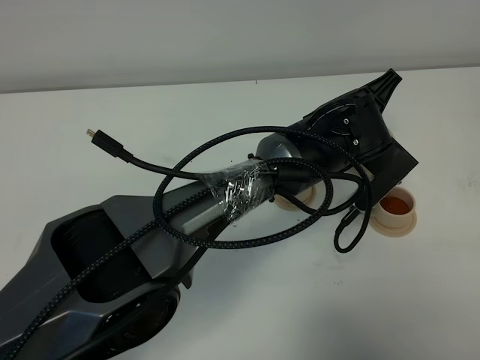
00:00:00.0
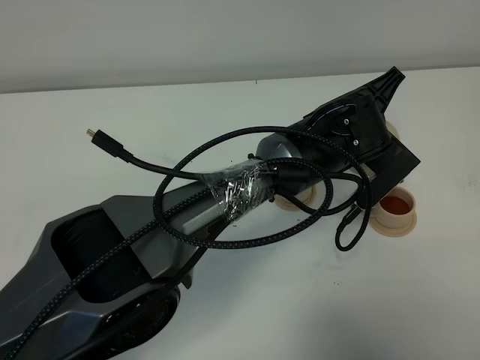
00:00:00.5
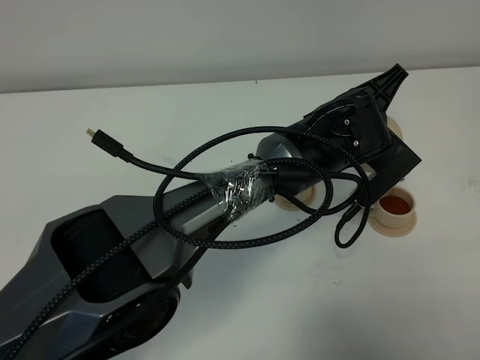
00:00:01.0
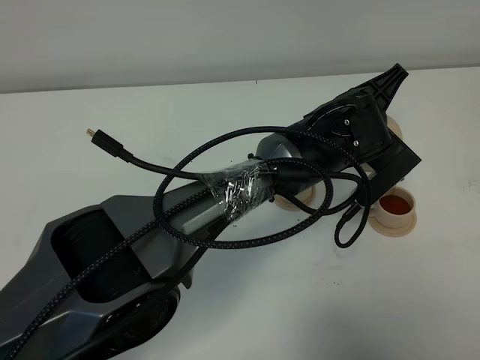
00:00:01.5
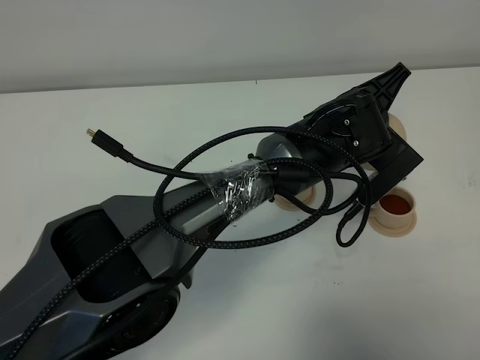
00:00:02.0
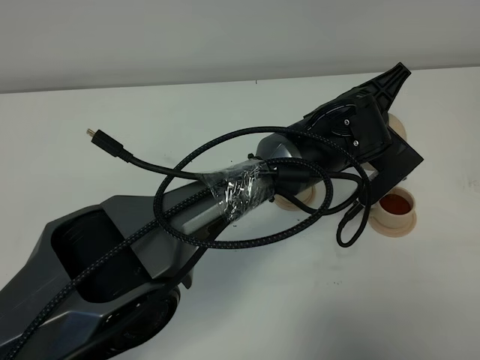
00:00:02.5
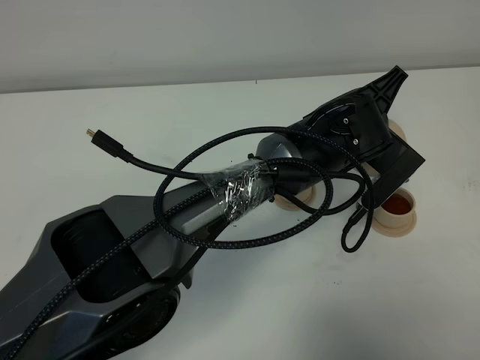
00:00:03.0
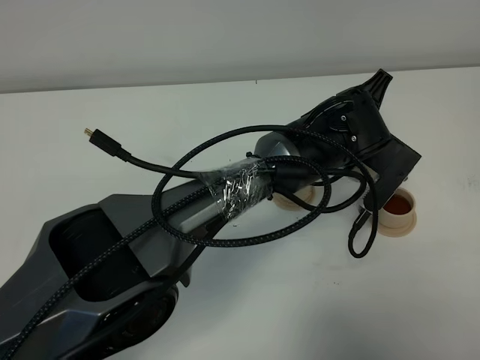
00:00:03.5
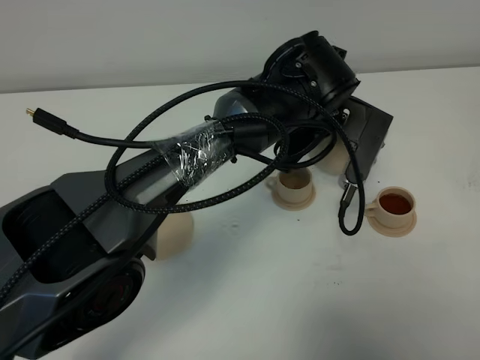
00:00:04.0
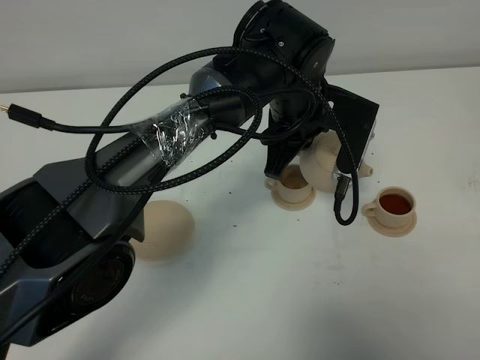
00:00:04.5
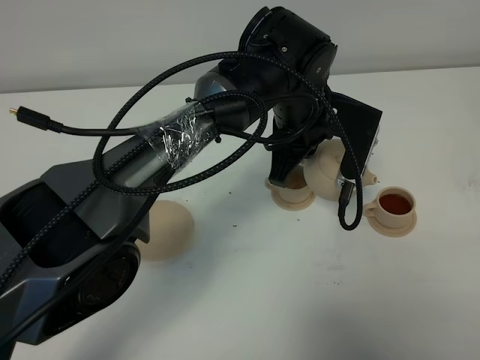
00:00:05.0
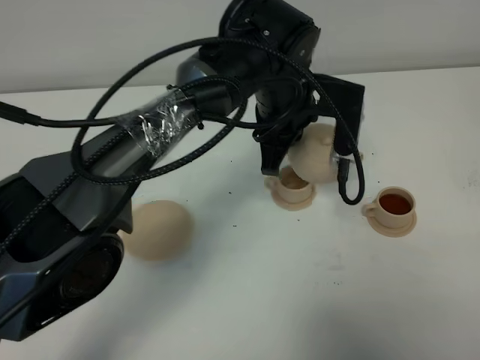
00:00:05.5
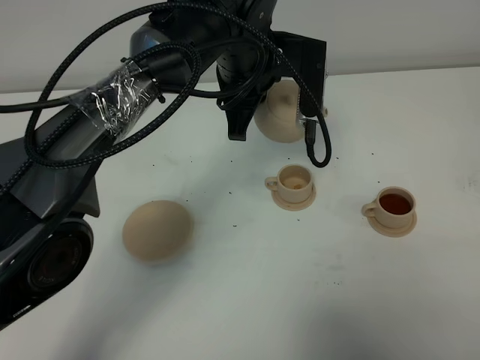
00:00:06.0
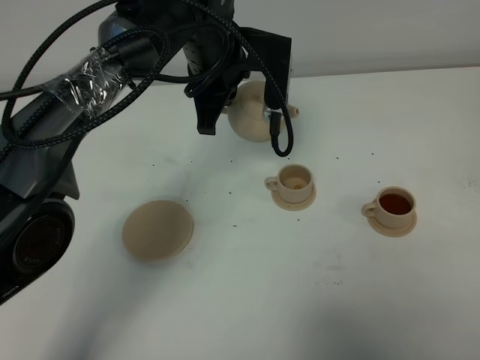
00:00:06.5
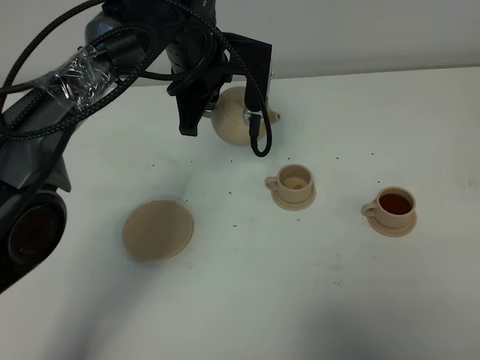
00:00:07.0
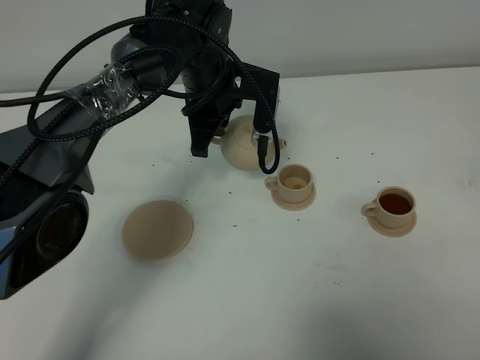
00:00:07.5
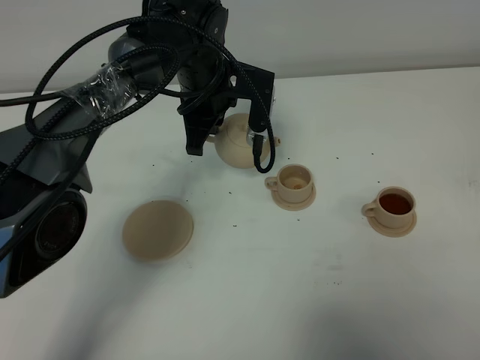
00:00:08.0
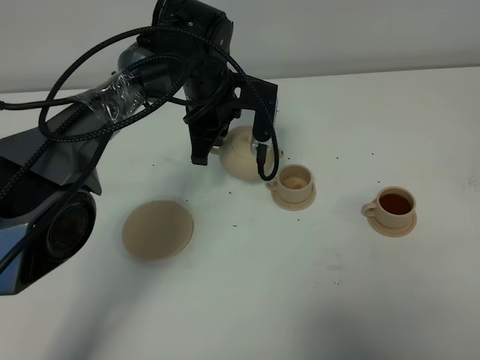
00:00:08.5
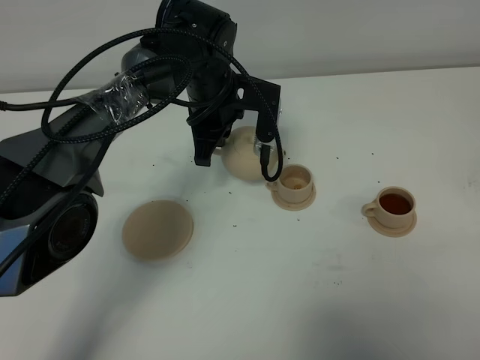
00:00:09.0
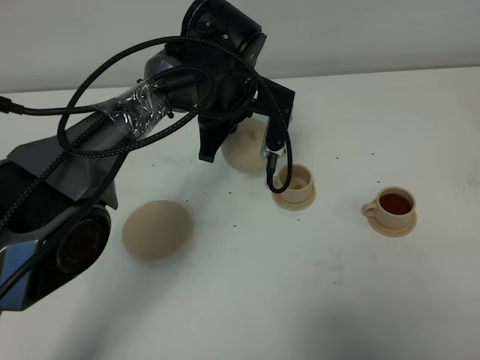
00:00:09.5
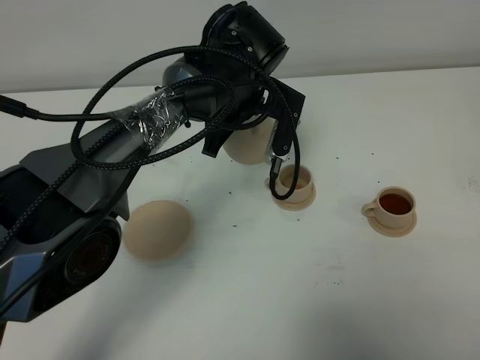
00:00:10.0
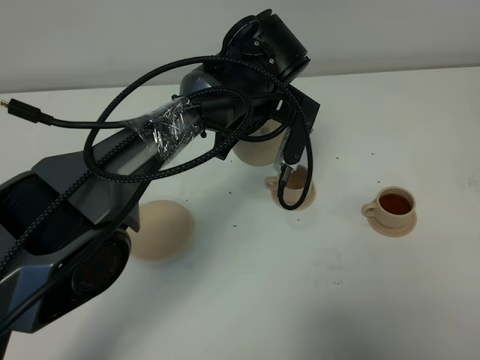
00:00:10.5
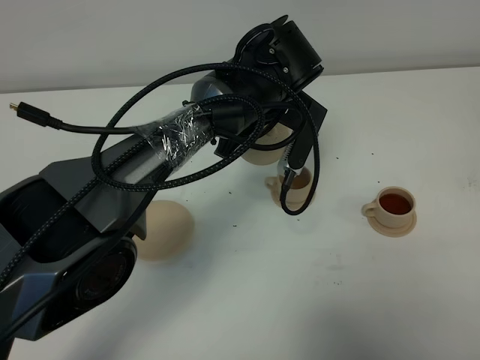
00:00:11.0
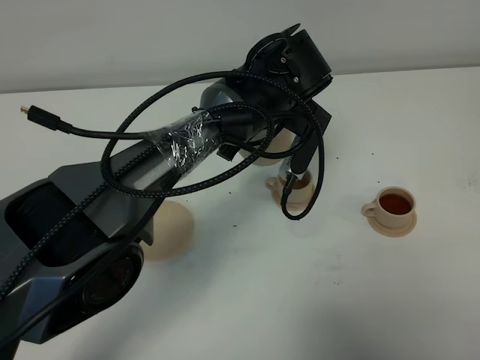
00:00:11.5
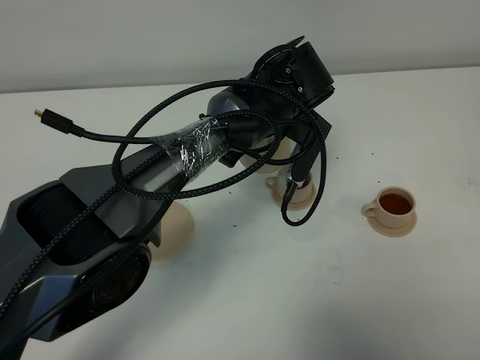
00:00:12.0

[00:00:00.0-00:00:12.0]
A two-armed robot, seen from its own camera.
Task of the whole recording: grasp the brown teapot and pour the tea into the two brown teacups one by one, put the brown teapot back in its original place.
Step, 00:00:00.0 to 00:00:03.5: Pour tea into the teacup with the left gripper.
00:00:00.0 to 00:00:02.0: The two grippers keep their place.
00:00:02.0 to 00:00:04.0: The left gripper heads to the left, covering some 5 cm.
00:00:04.0 to 00:00:06.0: The left gripper heads to the left and upward, covering approximately 10 cm.
00:00:06.0 to 00:00:08.0: The left gripper shifts about 10 cm downward and to the left.
00:00:08.0 to 00:00:10.0: The left gripper moves roughly 5 cm.

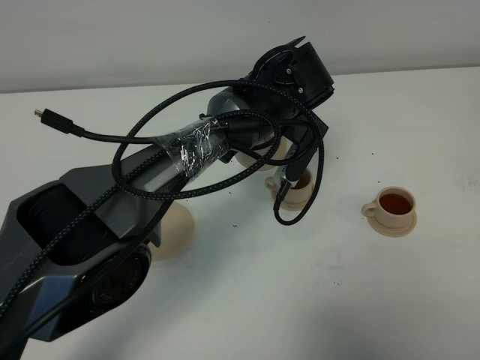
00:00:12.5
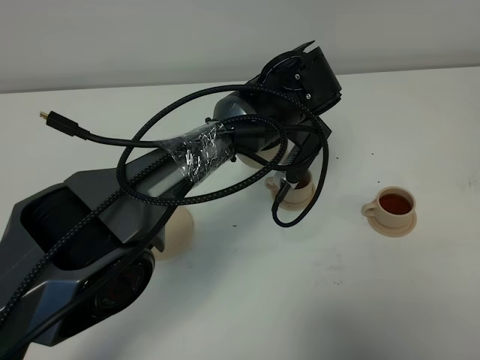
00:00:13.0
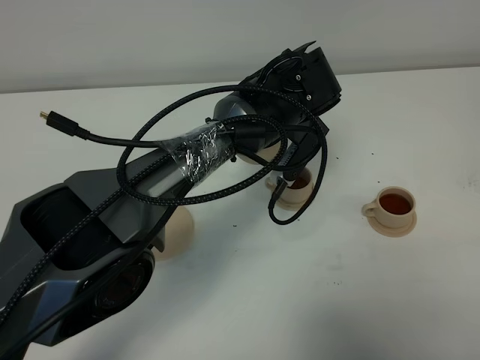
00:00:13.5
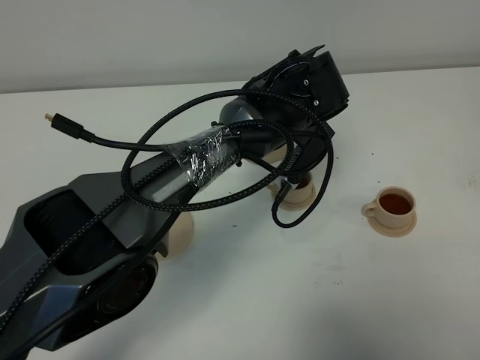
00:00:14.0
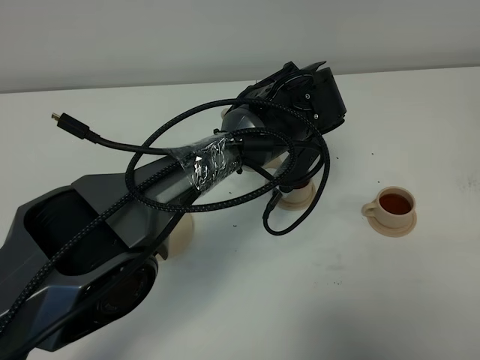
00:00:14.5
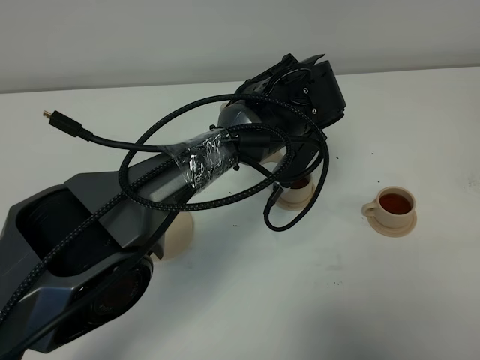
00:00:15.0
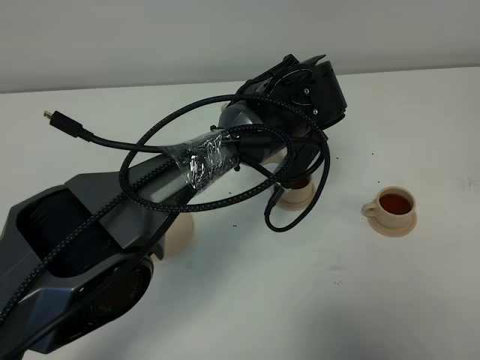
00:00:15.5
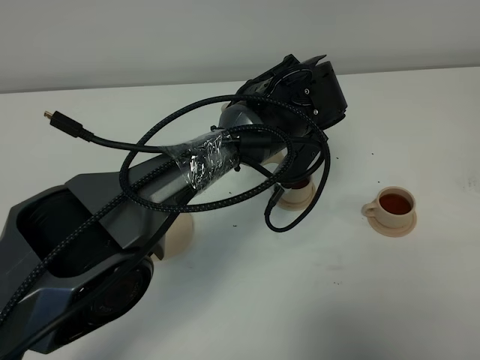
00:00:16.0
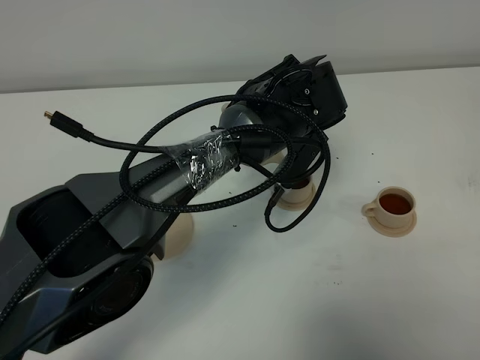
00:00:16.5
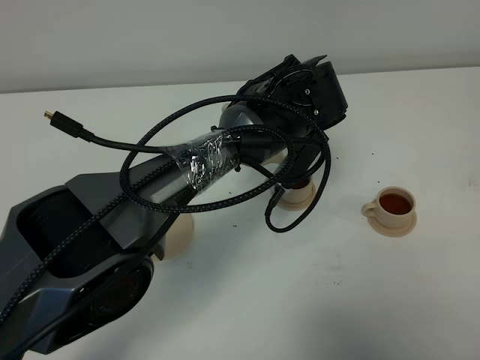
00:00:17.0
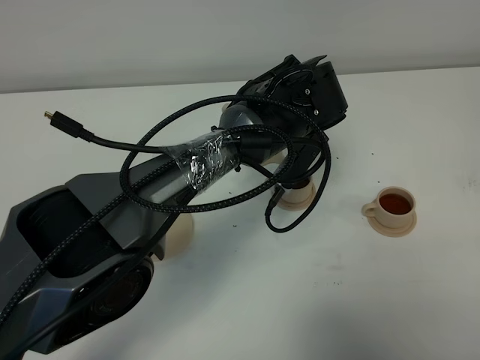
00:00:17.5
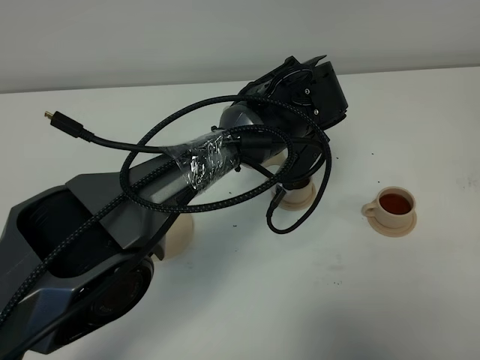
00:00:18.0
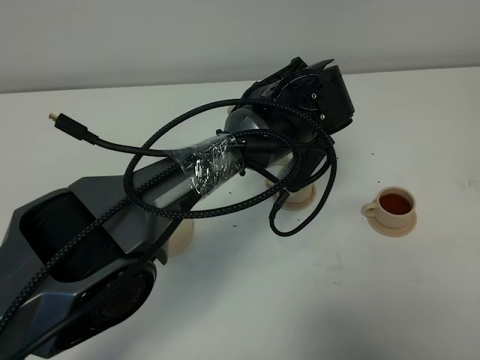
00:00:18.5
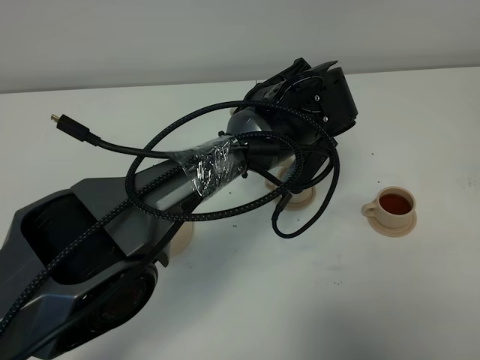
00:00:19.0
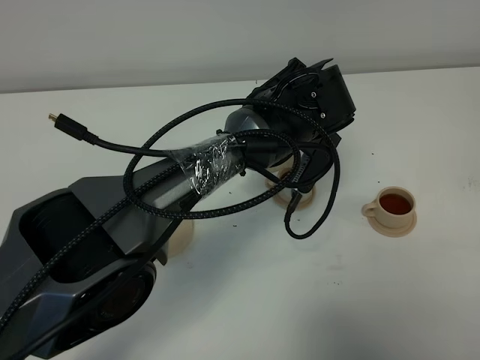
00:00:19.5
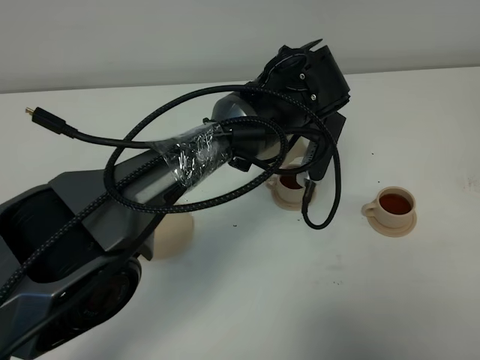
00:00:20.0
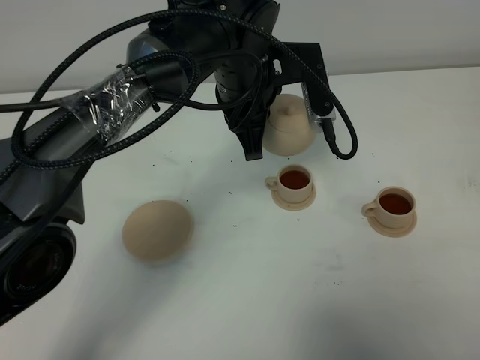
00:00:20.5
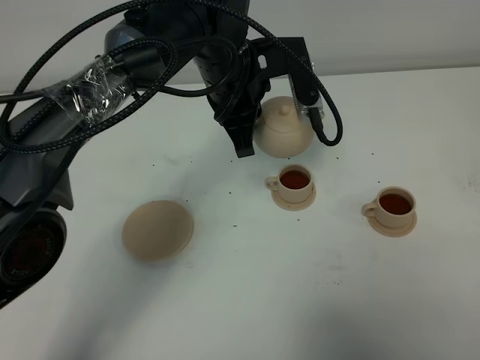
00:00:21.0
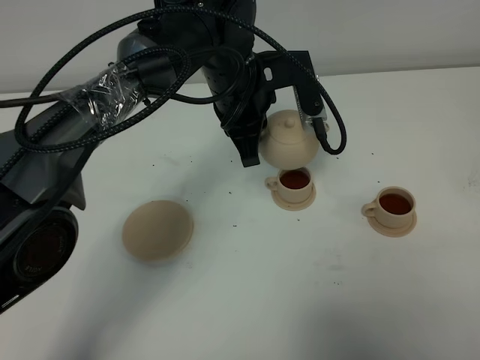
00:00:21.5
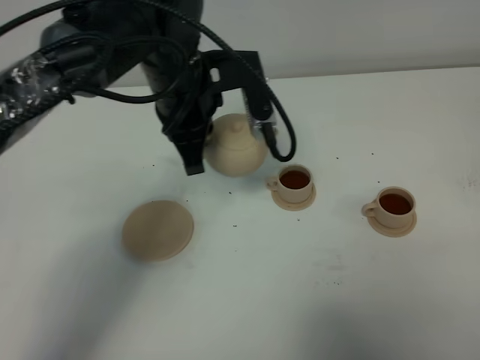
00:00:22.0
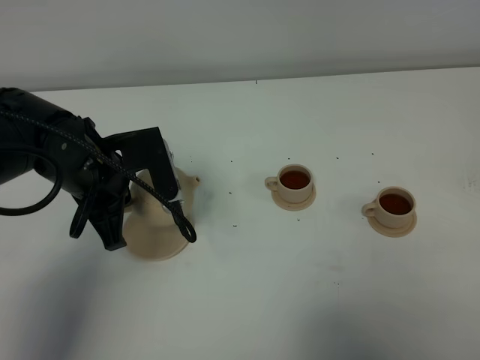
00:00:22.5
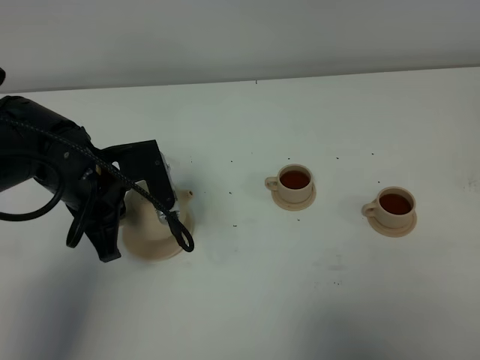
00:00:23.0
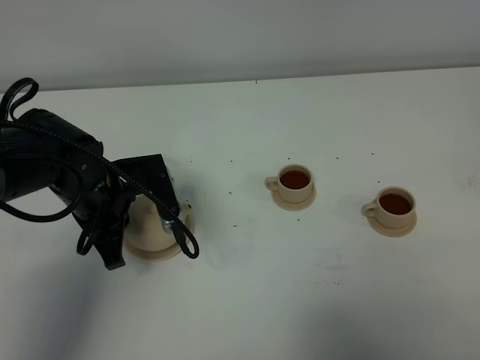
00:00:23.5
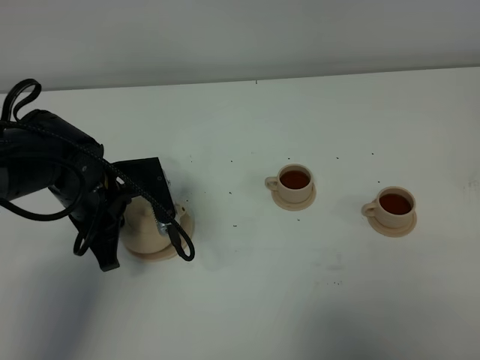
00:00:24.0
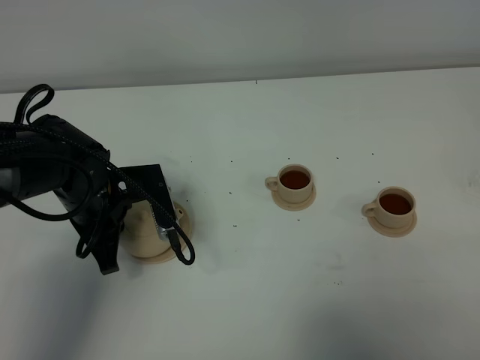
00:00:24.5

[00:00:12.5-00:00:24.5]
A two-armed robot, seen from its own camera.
Task of the whole recording: grasp the brown teapot and pour the tea into the two brown teacups one by one, put the brown teapot back in its original place.
Step, 00:00:12.5 to 00:00:20.0: Pour tea into the teacup with the left gripper.
00:00:12.5 to 00:00:14.5: The grippers stay close to where they were, moving slightly.
00:00:14.5 to 00:00:16.5: Both grippers stay put.
00:00:16.5 to 00:00:18.5: Both grippers stay put.
00:00:18.5 to 00:00:20.5: The left gripper travels upward by approximately 5 cm.
00:00:20.5 to 00:00:22.5: The left gripper heads to the left and backward, covering roughly 20 cm.
00:00:22.5 to 00:00:24.5: The left gripper heads downward, covering about 5 cm.

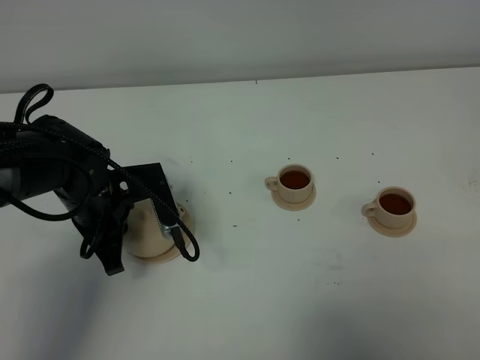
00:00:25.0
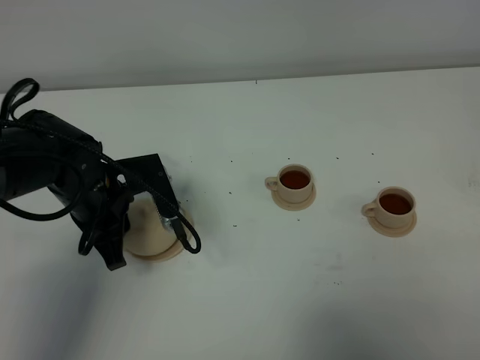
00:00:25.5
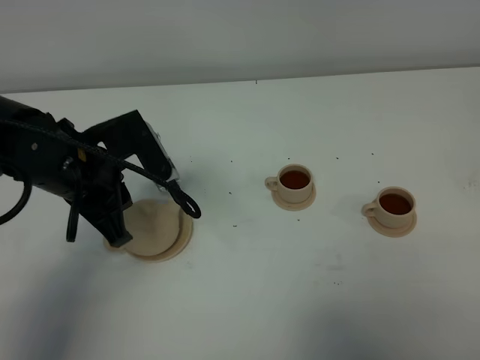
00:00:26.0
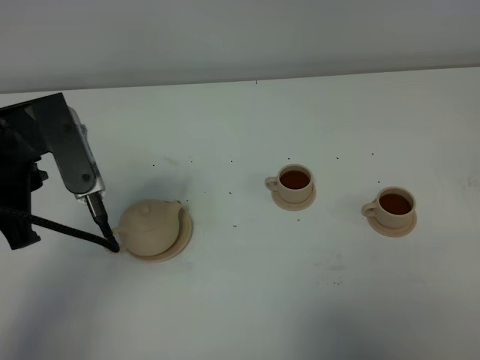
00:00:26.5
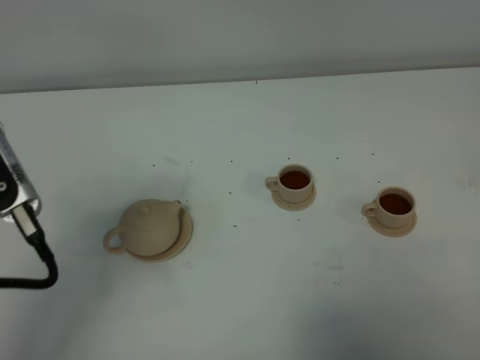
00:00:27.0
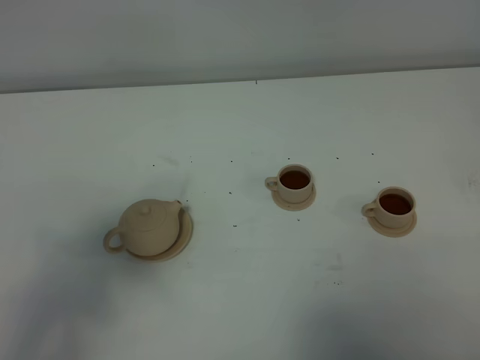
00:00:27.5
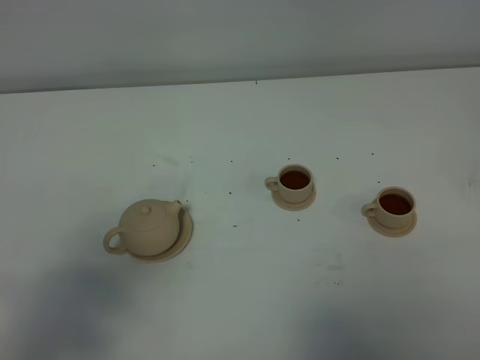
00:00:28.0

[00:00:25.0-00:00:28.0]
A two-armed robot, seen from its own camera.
Task of the whole recording: grasp the brown teapot and pour the tea into the two brown teacups one by one, put the brown teapot back in its original place.
00:00:25.0 to 00:00:26.5: The left gripper shifts approximately 20 cm upward and backward.
00:00:26.5 to 00:00:28.0: The left gripper moves backward and upward, some 20 cm.
